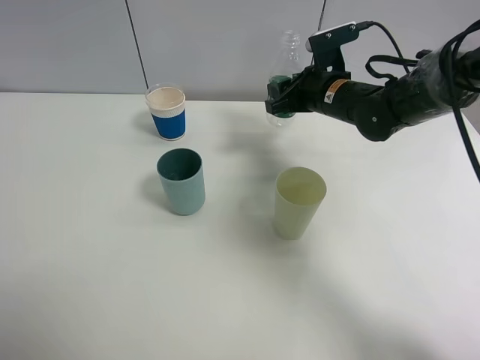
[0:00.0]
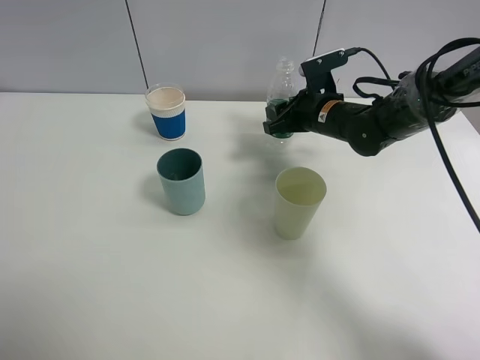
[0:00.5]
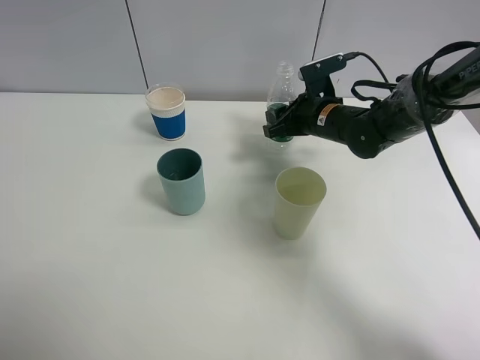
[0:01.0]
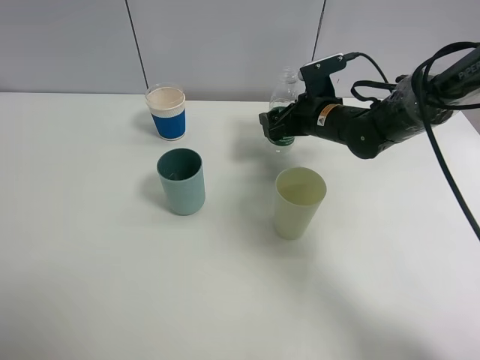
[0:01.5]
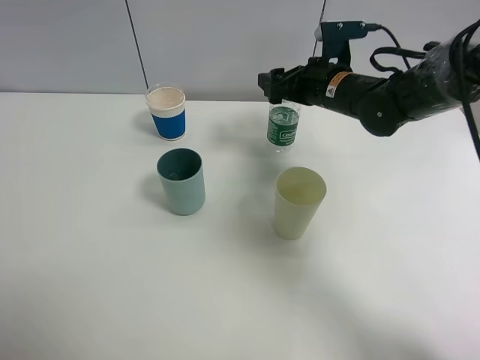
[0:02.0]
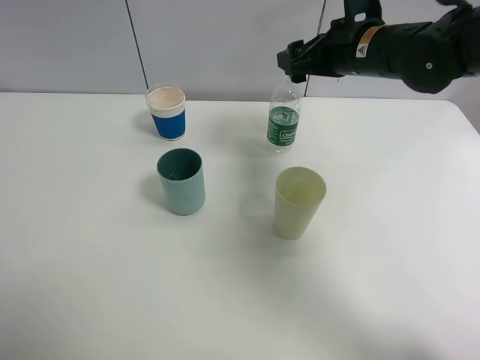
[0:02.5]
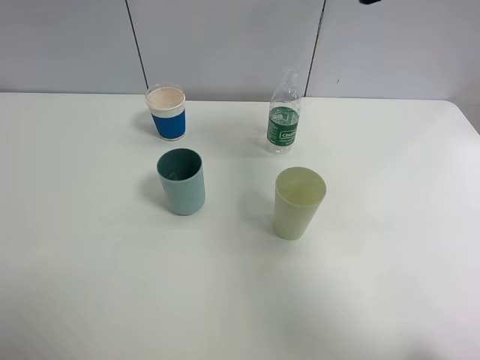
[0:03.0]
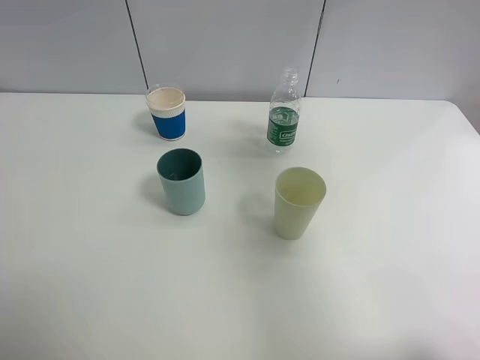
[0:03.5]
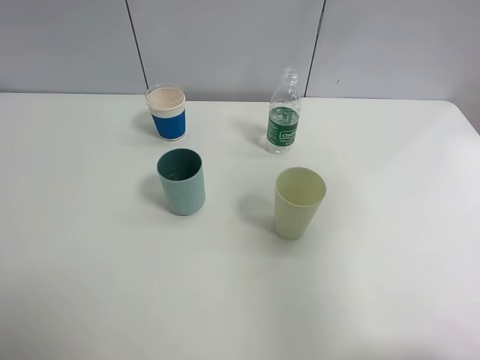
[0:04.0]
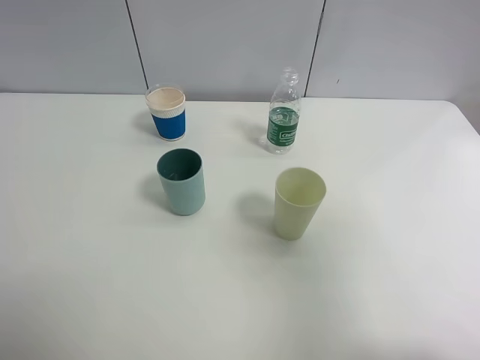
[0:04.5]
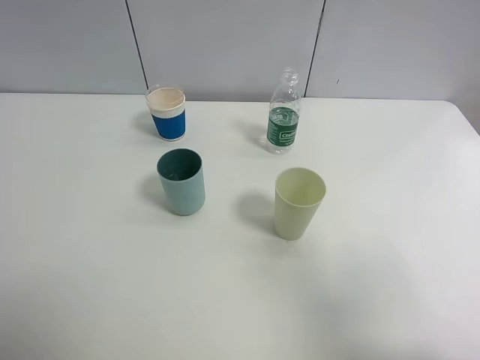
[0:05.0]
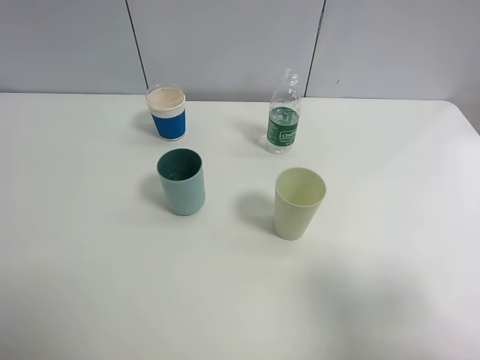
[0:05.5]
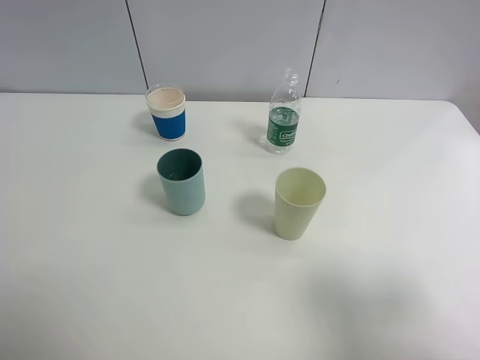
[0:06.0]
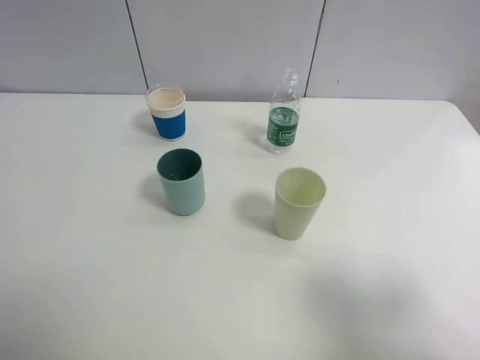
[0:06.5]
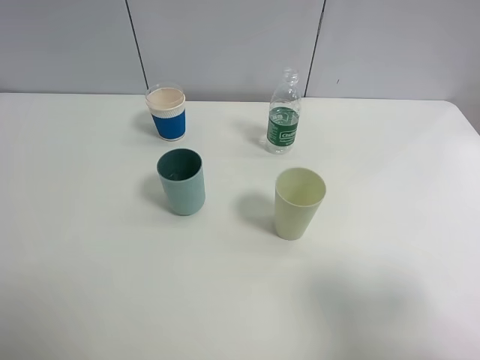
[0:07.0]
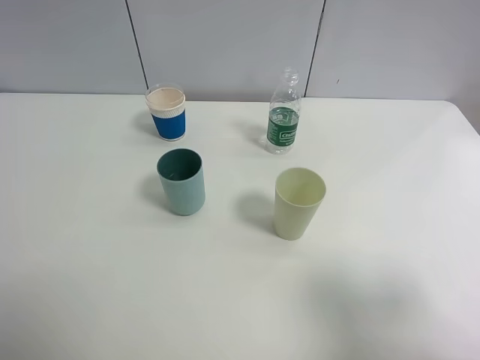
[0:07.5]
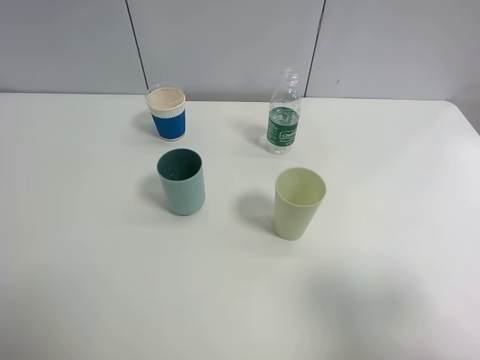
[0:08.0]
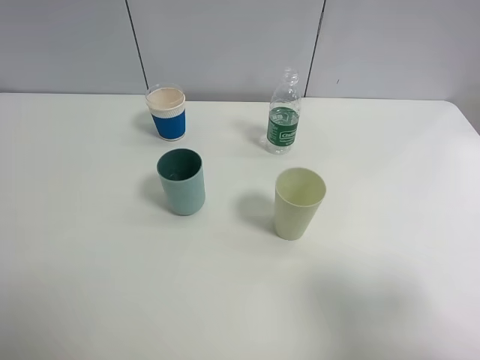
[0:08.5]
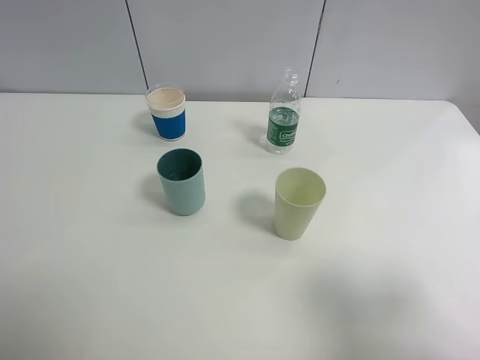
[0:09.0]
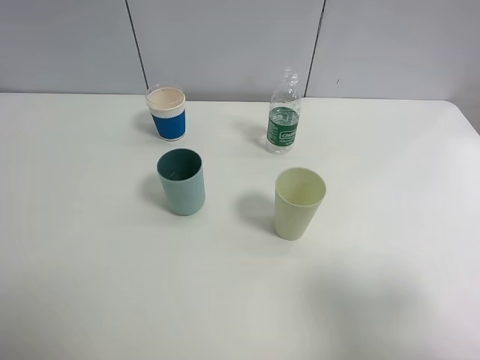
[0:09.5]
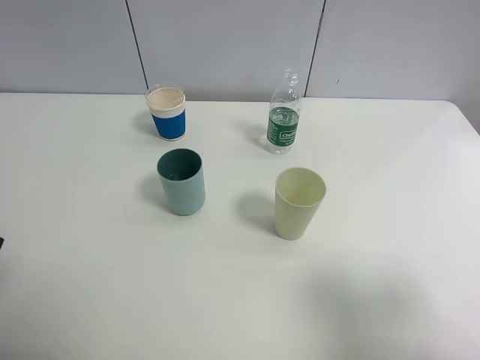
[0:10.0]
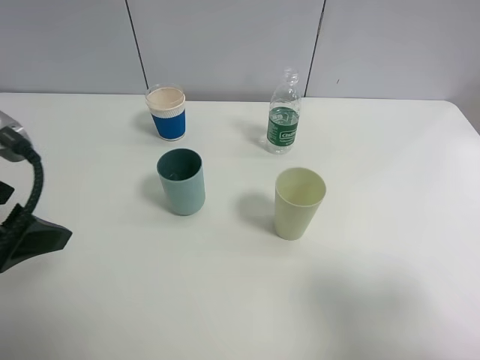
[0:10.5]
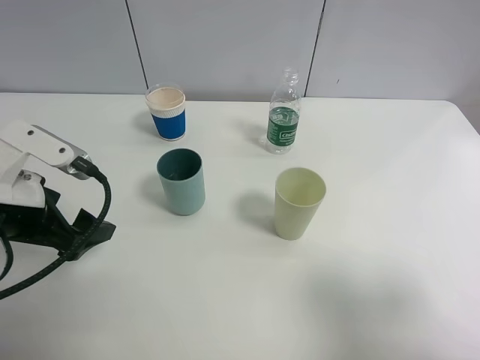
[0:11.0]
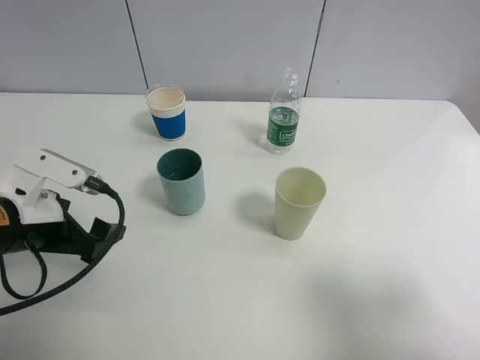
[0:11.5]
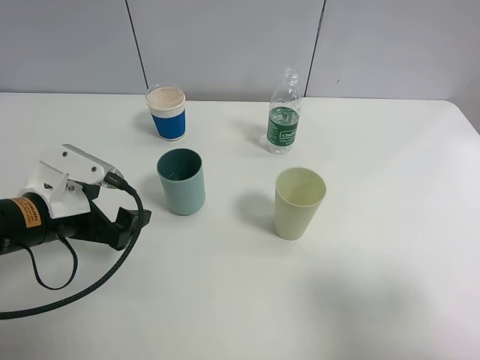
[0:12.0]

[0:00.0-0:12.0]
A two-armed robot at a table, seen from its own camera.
Task of the whole recording: use a clamp to hold the bottle of the drink, pour the beverage into a random cup, then clamp the cup containing the drink and pour the drink into another random cup.
Step, 0:00.0 to 0:02.0: Place the water bottle on the table with right gripper.
0:00.0 to 0:02.0: The right gripper opens up.
0:02.0 to 0:04.0: The right gripper moves backward, upward and to the right, some 40 cm.
0:04.0 to 0:06.0: The right gripper shifts about 15 cm downward and backward.
0:06.0 to 0:08.0: Both grippers stay put.
0:10.0 to 0:12.0: The left gripper moves downward and forward, approximately 20 cm.

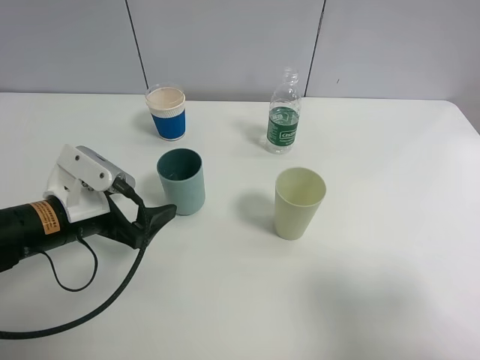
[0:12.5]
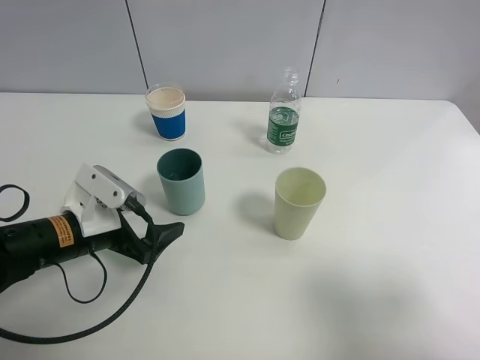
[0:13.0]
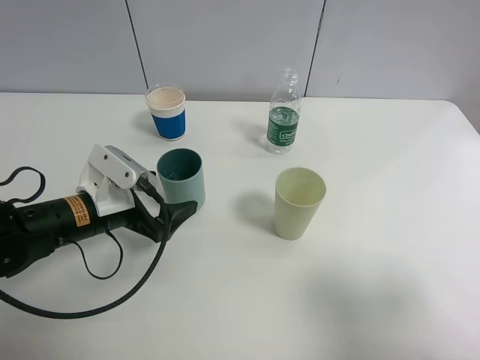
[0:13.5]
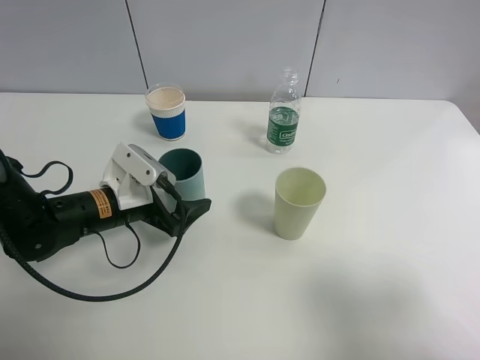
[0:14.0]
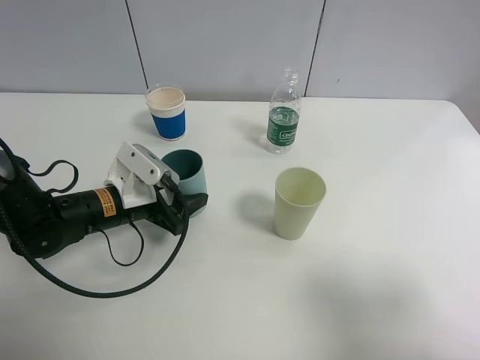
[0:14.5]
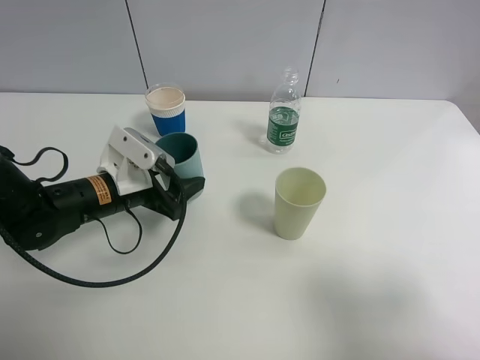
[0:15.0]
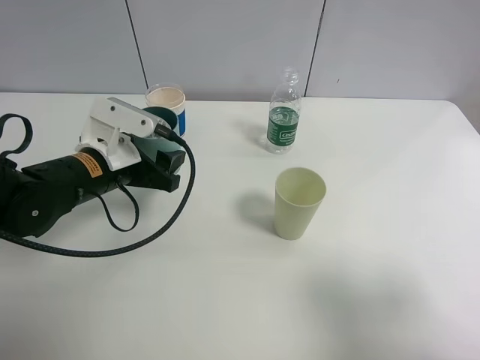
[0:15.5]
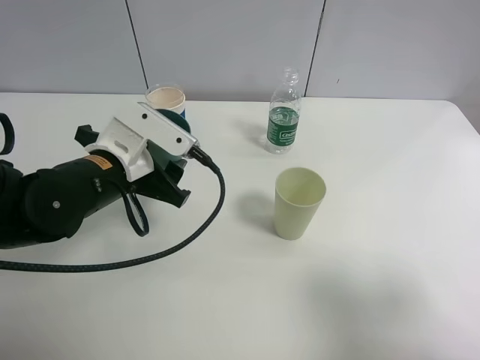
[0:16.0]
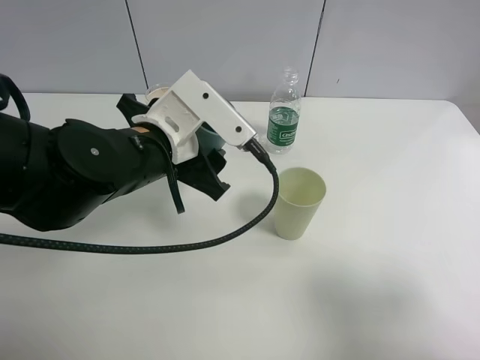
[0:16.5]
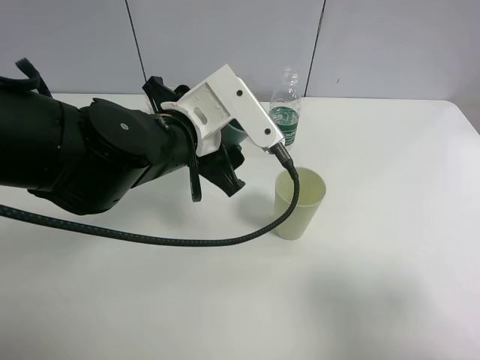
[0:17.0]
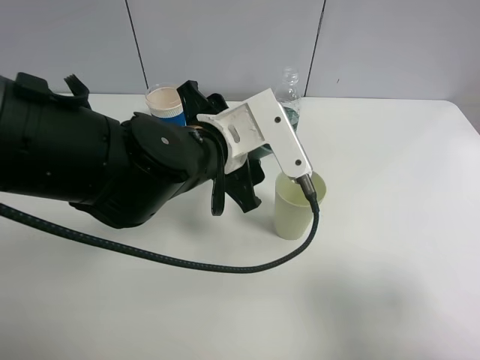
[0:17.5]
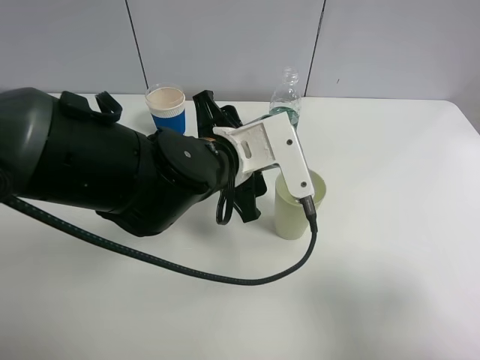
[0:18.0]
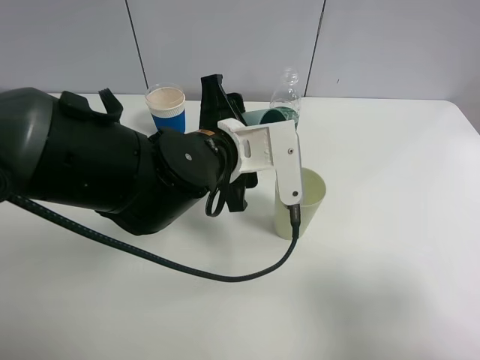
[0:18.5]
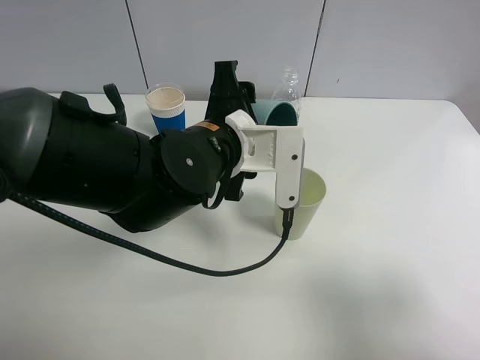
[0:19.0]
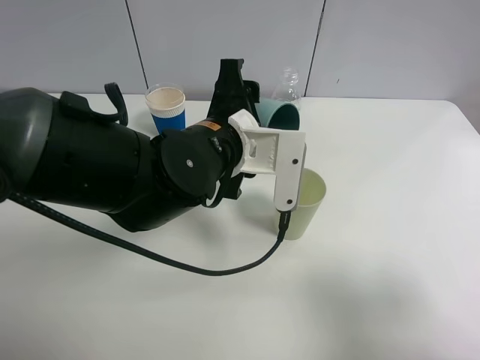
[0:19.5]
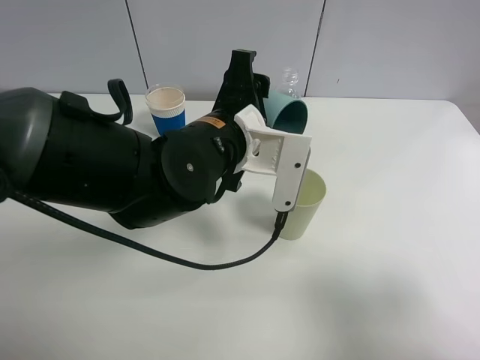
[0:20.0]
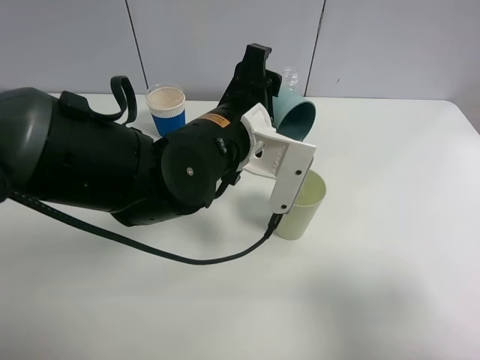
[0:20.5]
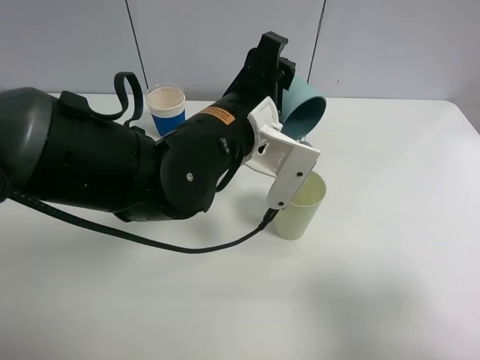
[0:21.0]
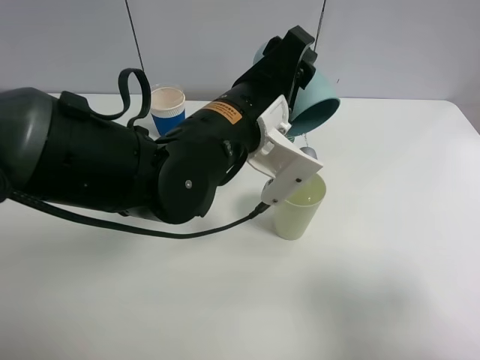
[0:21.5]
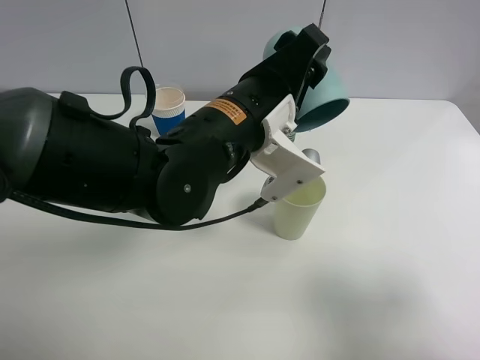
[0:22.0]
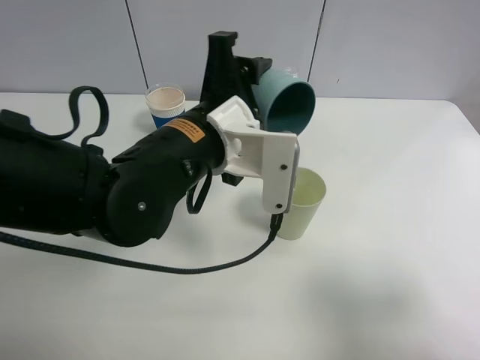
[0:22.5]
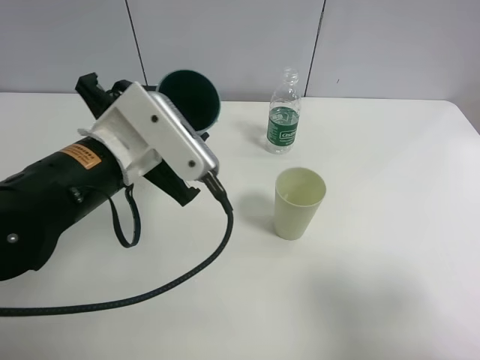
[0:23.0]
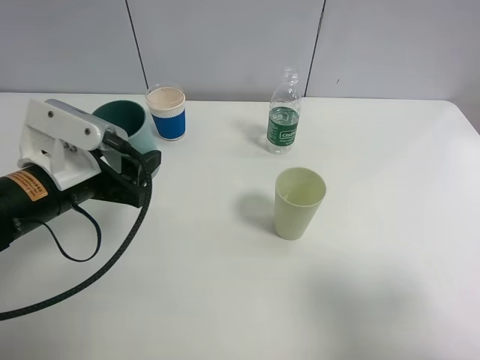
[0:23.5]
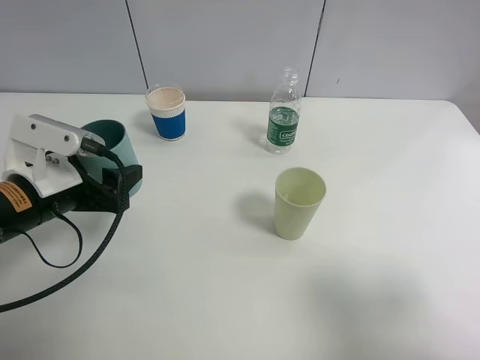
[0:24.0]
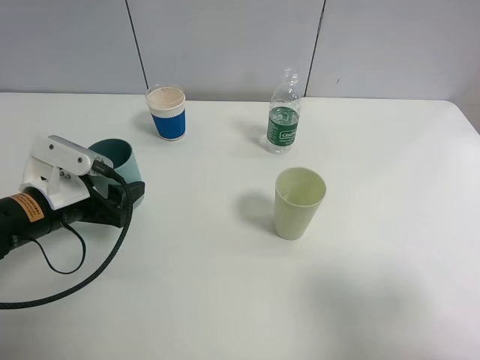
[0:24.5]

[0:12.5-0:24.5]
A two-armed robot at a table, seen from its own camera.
Task of the whole recording: use a clamp to hold the bottle of the drink, pour the beverage into a random cup, then clamp the cup containing the drink and pour the drink into another random cup.
Step, 0:12.5 to 0:15.0: Pick up the blue plastic cup with left gripper.
Step, 0:15.5 to 0:22.5: Pour the water into the green plastic cup with left gripper.
0:12.5 to 0:14.5: The left gripper shifts roughly 5 cm forward, and closes its fingers.
0:14.5 to 0:16.5: The left gripper moves upward and to the right, approximately 15 cm.
0:16.5 to 0:18.5: The left gripper is displaced to the right by approximately 5 cm.
0:22.5 to 0:24.5: The left gripper goes some 20 cm to the left and downward.

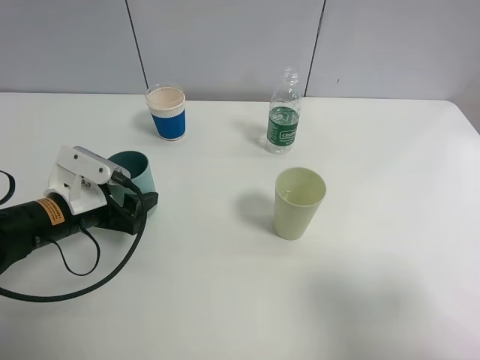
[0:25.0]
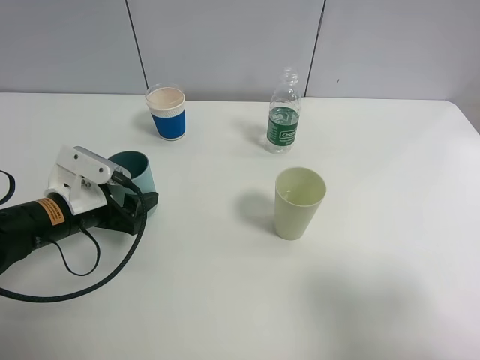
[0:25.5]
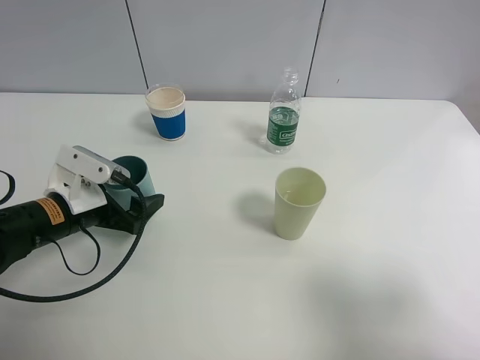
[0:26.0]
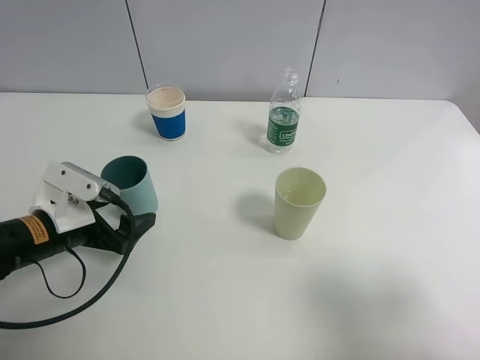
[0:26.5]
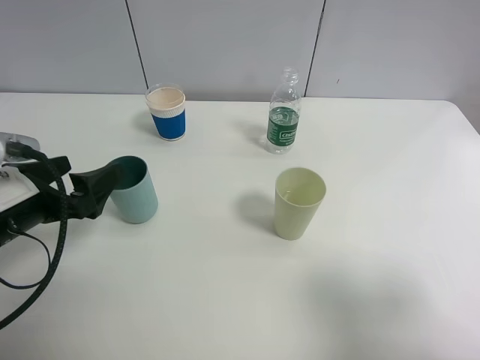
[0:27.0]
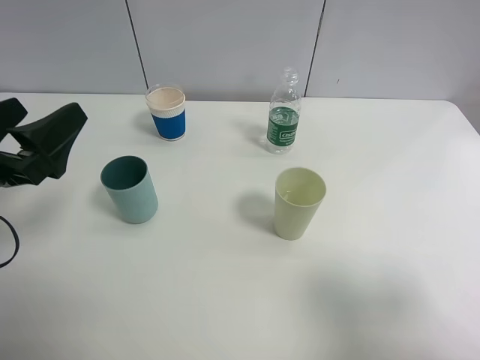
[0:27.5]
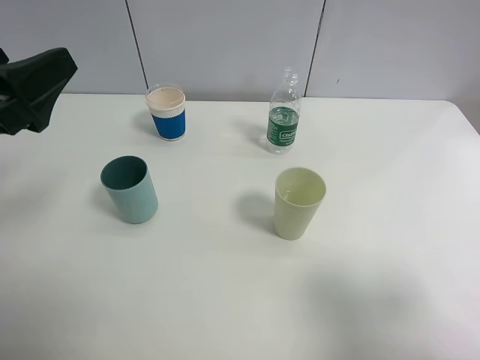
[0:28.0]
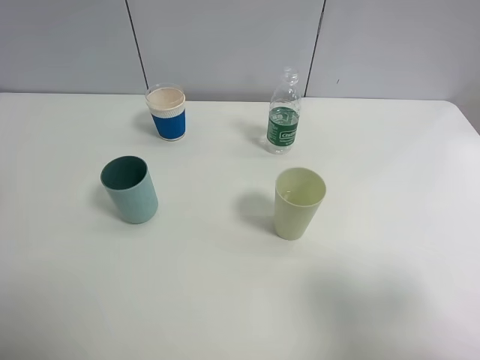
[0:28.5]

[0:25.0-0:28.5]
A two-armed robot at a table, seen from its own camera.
Task of the whole recording: use a clamp to hold the bottle of the drink, pour the beverage into a random cup, then clamp the cup containing the drink and pour the drink into another random cup.
0:25.0 to 0:27.0: The left gripper travels upward and backward by some 10 cm, and opens up.
0:27.0 to 0:28.5: The left gripper shifts roughly 15 cm upward.
